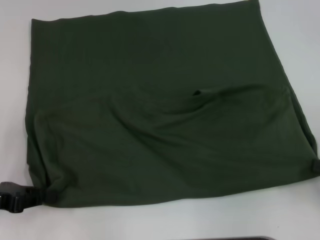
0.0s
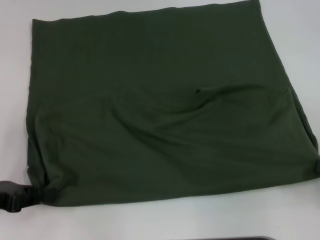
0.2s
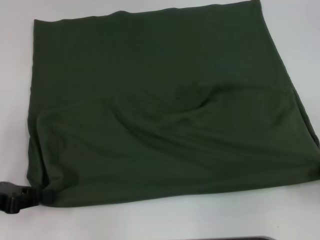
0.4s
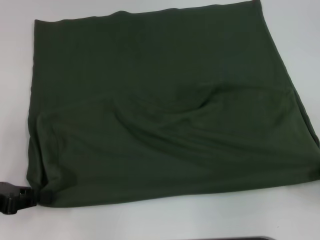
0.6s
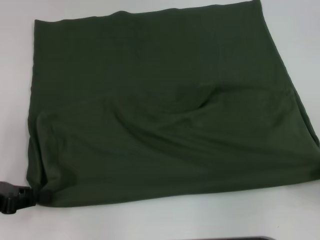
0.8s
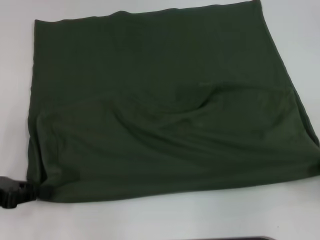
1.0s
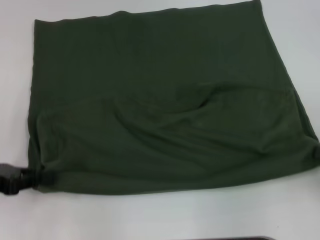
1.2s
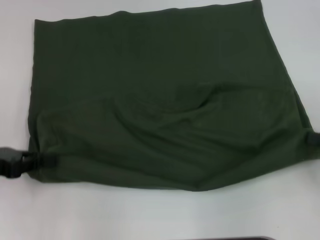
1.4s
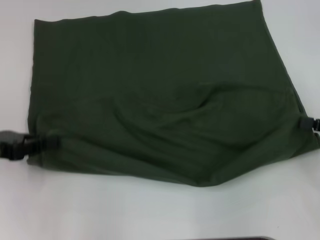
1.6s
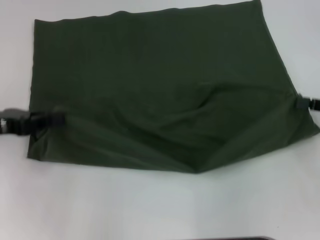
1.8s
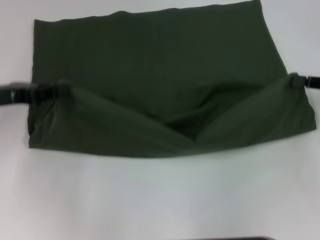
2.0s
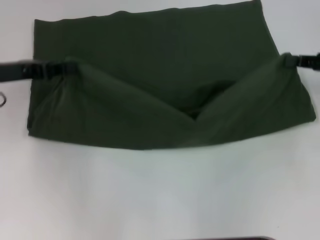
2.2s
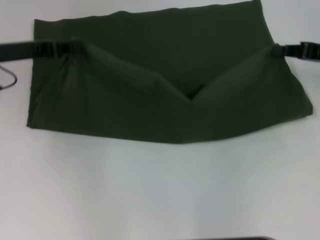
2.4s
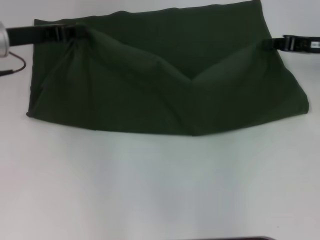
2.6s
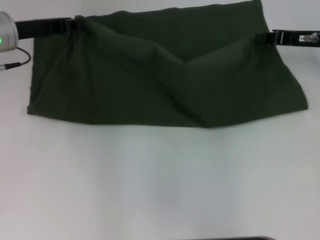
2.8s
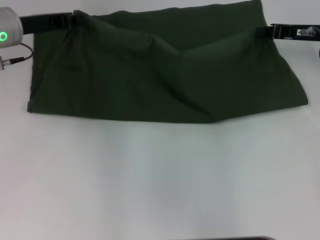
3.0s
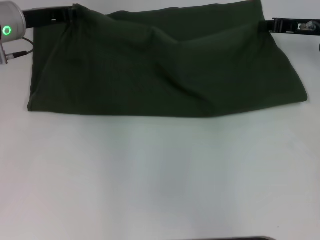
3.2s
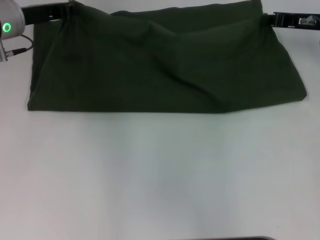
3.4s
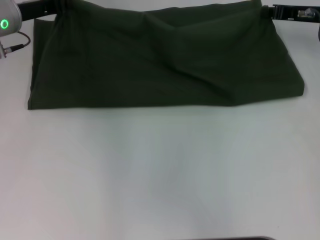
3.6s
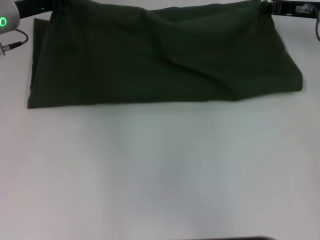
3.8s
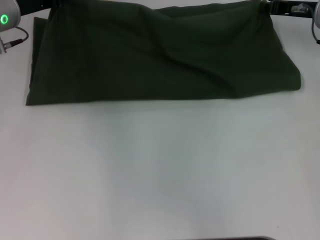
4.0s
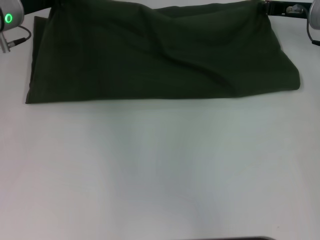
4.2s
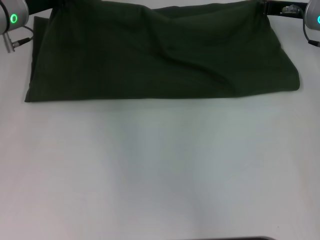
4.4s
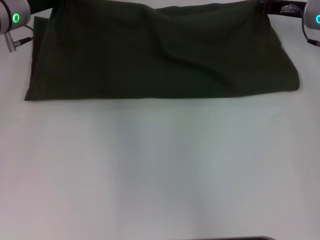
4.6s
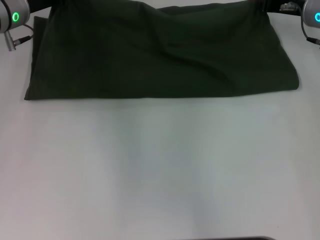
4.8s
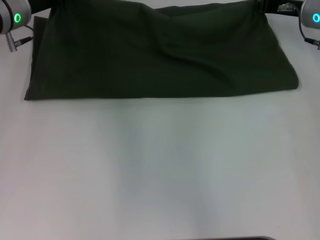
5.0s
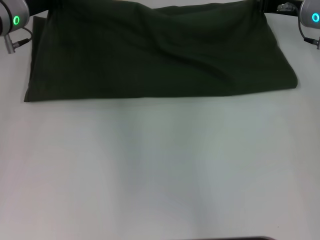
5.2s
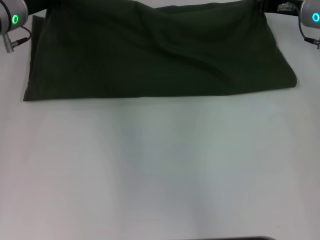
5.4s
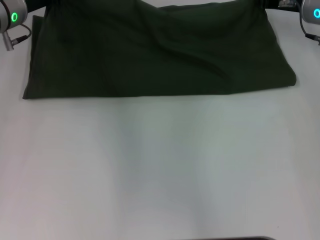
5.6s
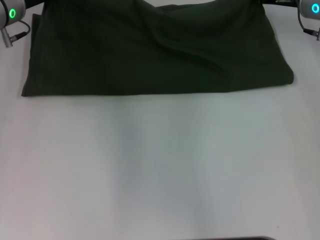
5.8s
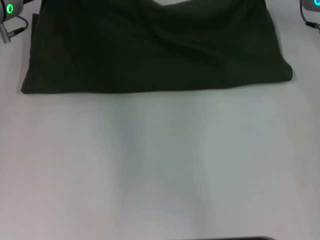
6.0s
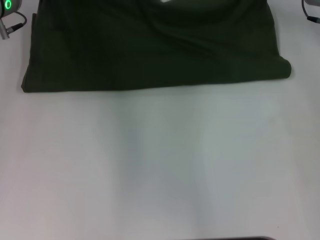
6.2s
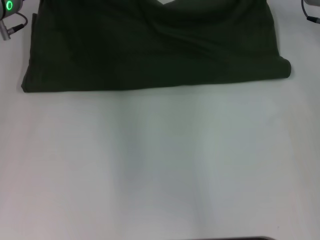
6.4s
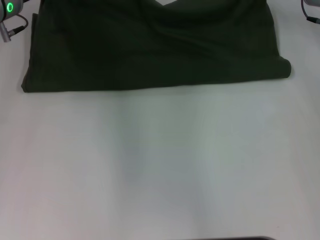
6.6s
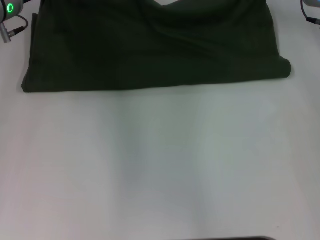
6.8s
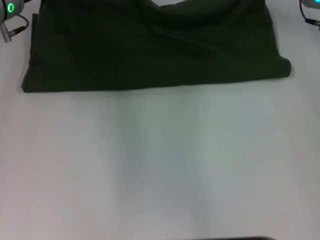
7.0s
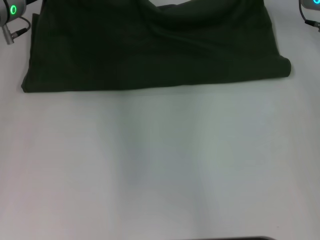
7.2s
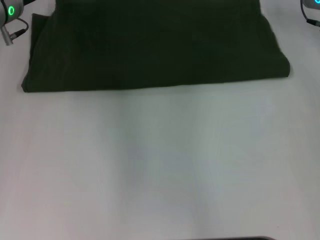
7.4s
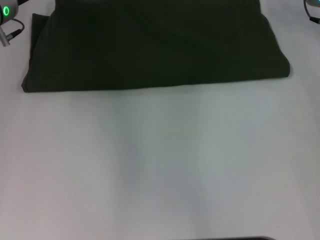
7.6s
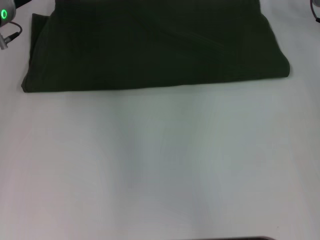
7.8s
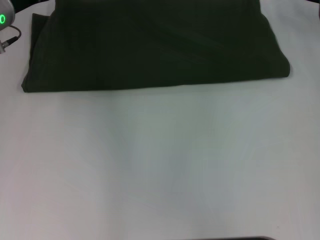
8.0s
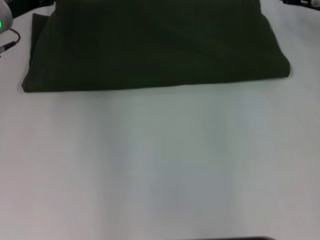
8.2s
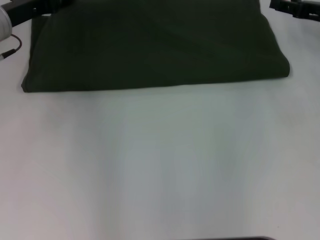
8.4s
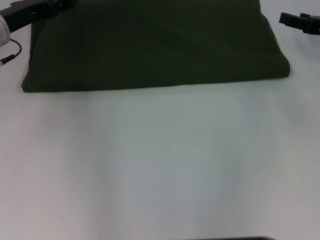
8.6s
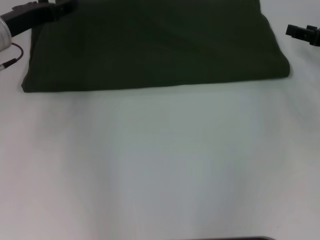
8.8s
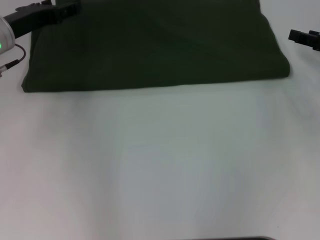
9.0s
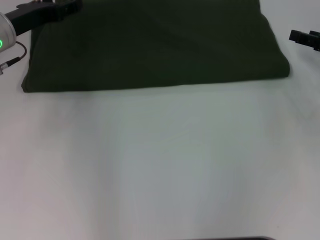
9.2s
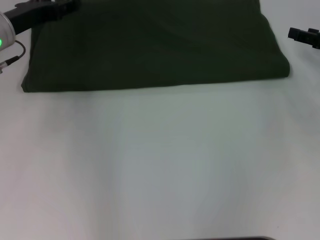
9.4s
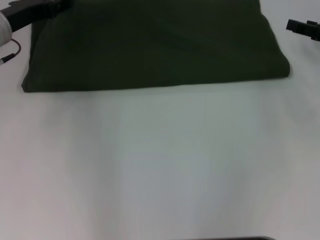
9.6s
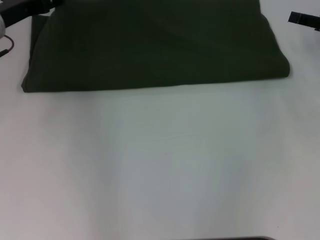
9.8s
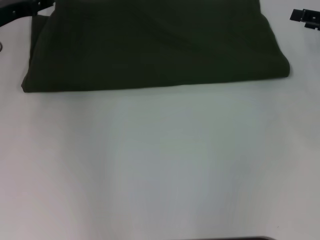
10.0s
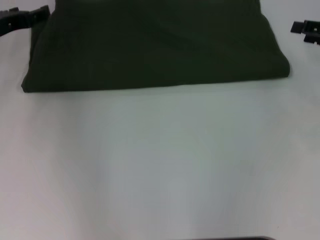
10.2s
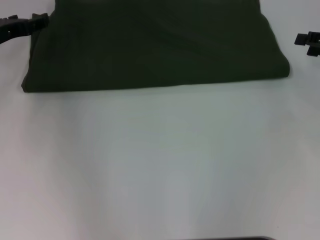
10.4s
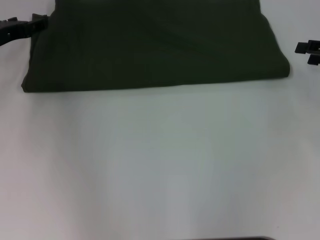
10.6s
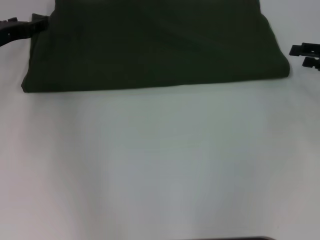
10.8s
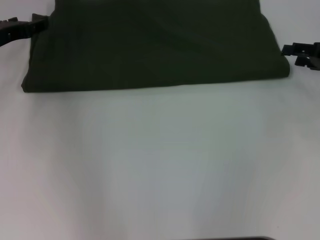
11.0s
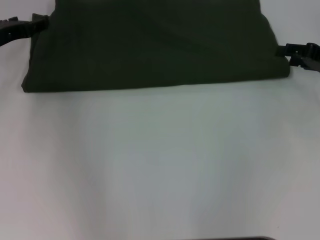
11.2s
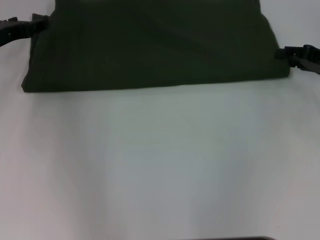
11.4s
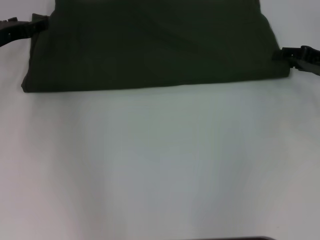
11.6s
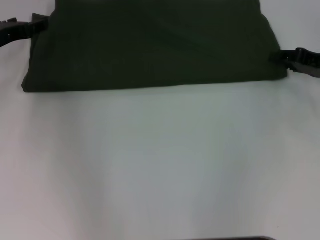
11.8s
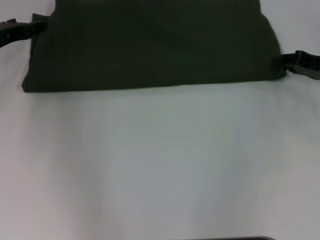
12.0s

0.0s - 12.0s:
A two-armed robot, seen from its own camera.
Step, 0.8s - 7.6s: Fold the clothes with your right hand.
0.0s - 1.6s: The left gripper shifts by roughly 5 cm; the right gripper goes about 5 cm forward.
1.6s - 3.0s: The left gripper goes approximately 20 cm forward and to the right; the right gripper heads forward and to the left, covering roughly 20 cm.
3.0s - 4.4s: The grippers move only a little.
4.4s - 7.6s: The grippers make only small movements.
7.6s - 9.0s: The right gripper moves backward and to the right, some 15 cm, and opens. The left gripper changes place by approximately 5 cm, and opens.
10.4s - 12.0s: The right gripper ends up approximately 5 cm from where it was.

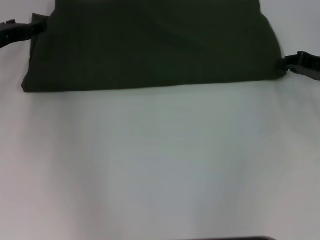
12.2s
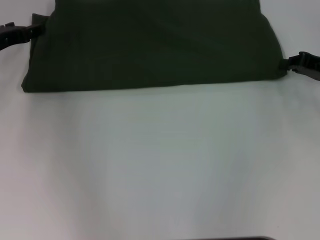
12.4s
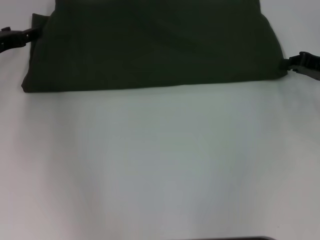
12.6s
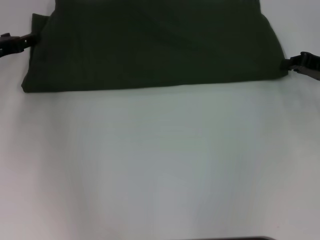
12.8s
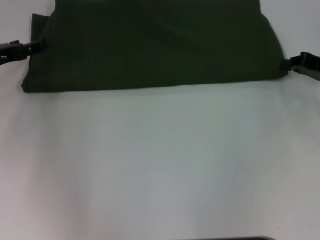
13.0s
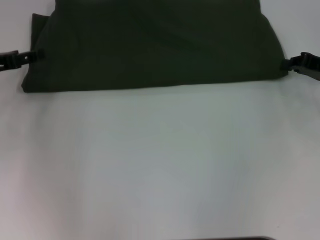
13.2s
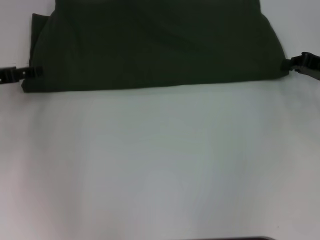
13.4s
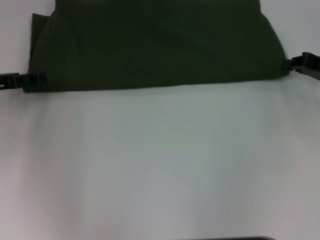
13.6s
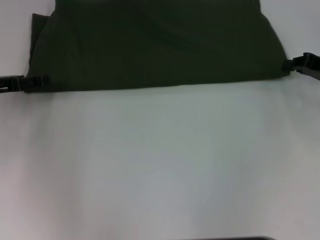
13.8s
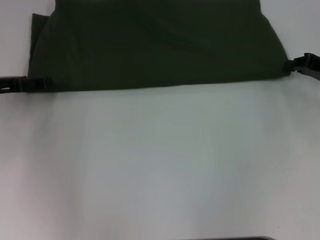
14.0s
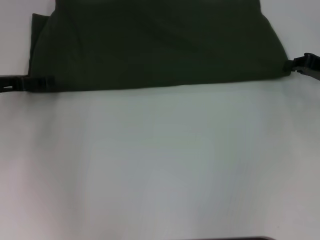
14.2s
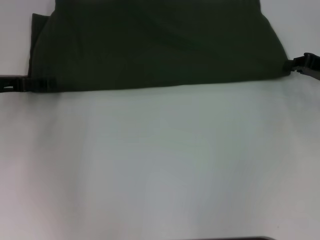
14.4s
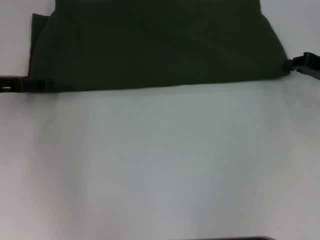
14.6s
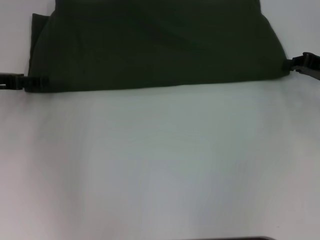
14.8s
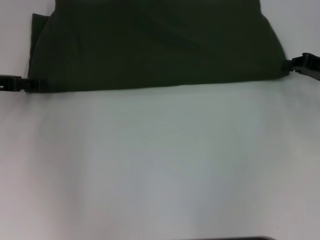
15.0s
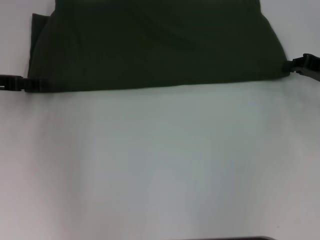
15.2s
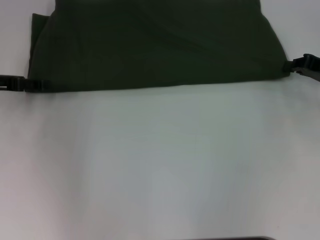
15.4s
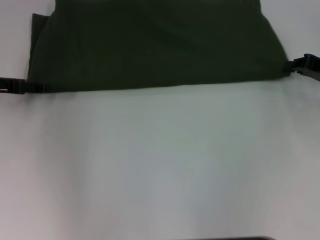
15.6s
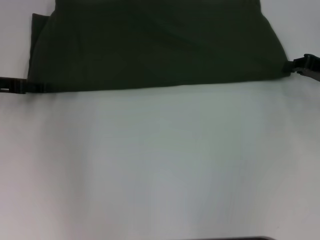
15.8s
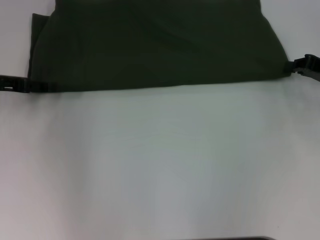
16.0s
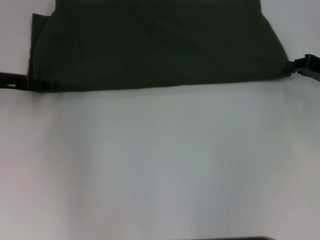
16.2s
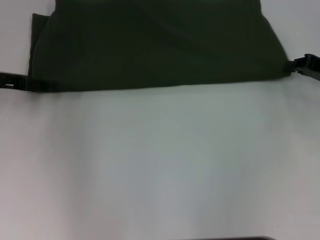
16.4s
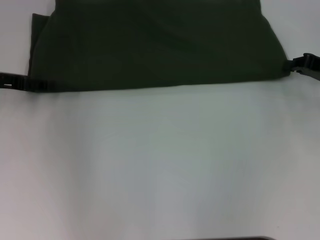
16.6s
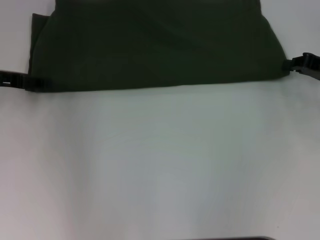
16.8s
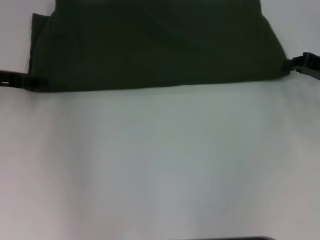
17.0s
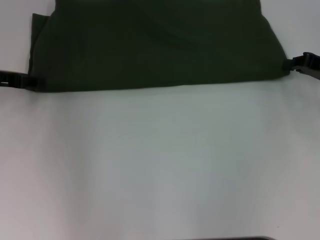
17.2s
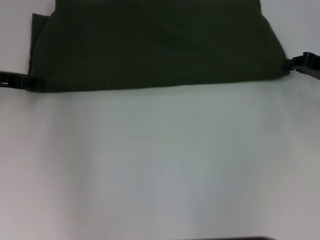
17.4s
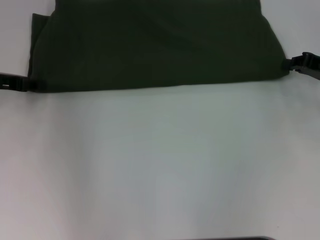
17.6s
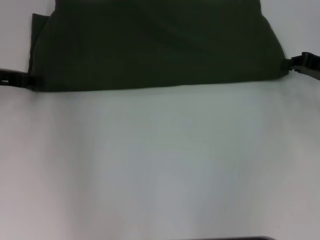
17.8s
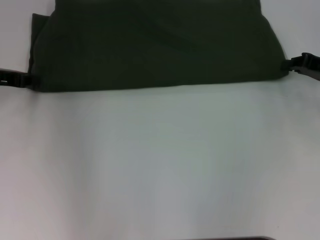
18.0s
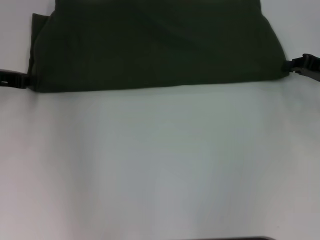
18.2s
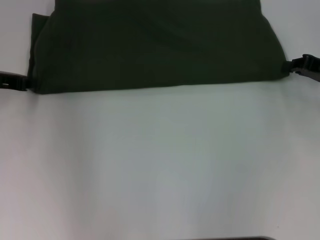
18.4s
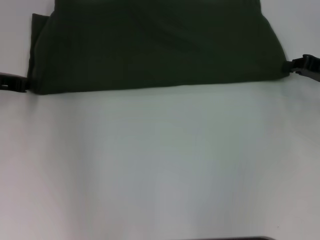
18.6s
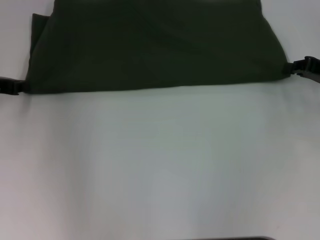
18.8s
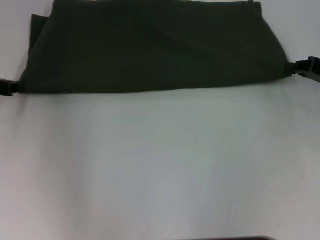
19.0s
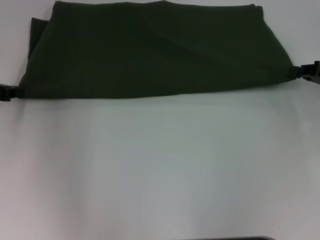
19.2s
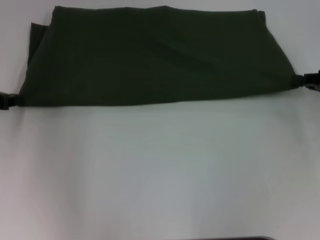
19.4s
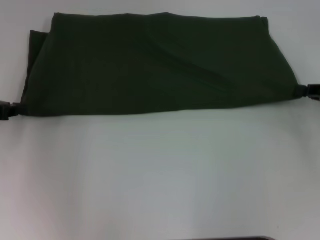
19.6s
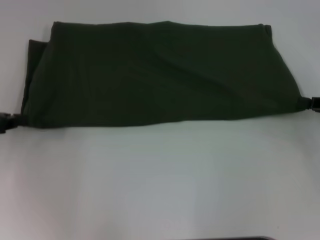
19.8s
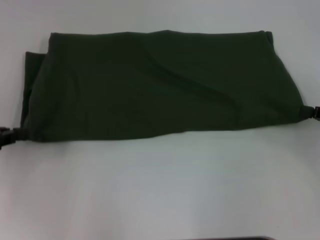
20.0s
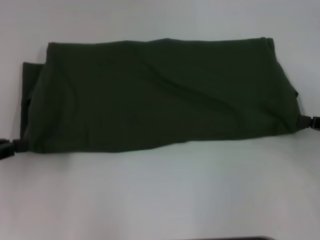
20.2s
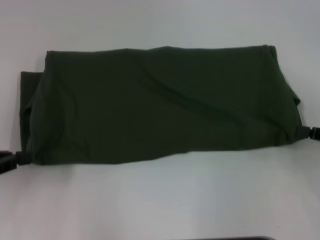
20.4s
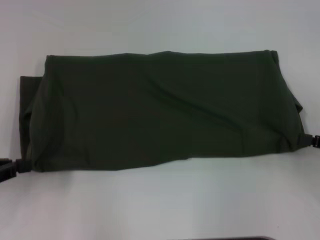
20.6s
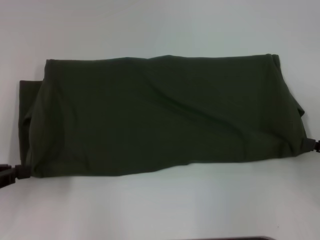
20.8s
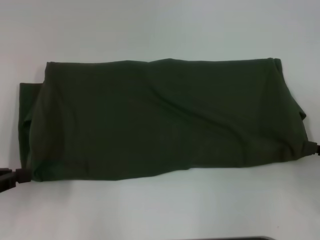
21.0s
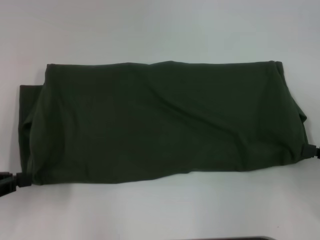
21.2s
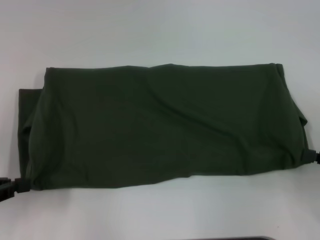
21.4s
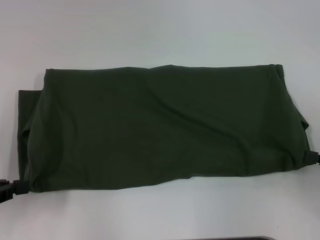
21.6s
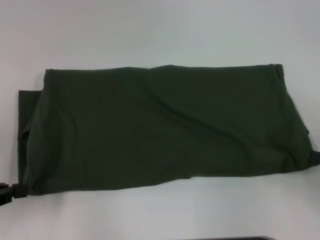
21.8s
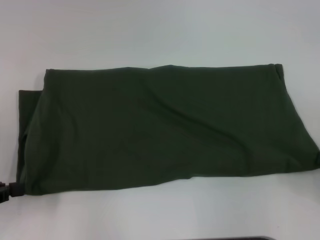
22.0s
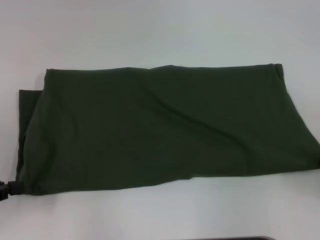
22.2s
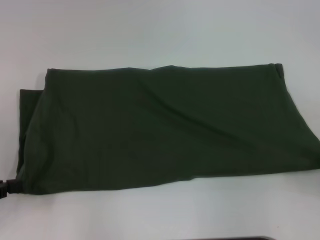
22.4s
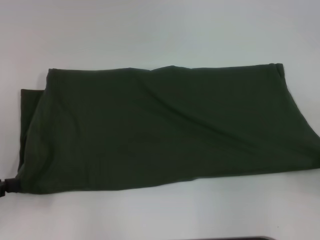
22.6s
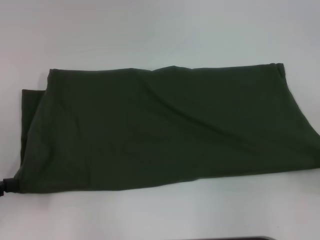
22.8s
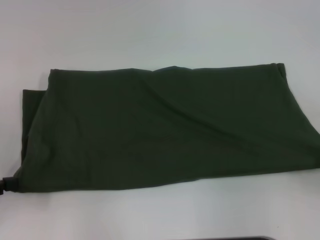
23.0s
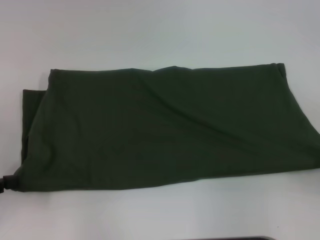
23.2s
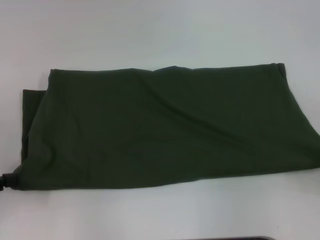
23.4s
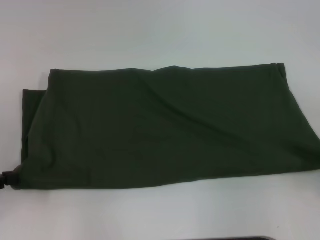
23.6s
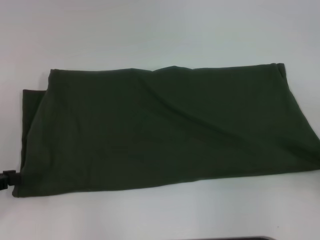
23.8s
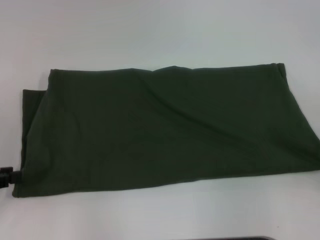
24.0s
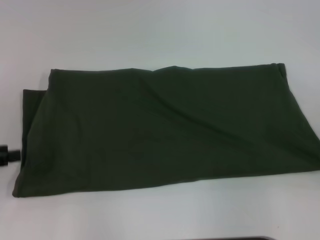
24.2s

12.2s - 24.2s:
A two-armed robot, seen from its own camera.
12.2s - 13.8s: The left gripper changes place by about 5 cm.
18.2s - 19.8s: The two grippers go roughly 5 cm backward.
19.8s - 21.2s: The grippers both shift backward by approximately 10 cm.
21.2s - 22.6s: The grippers stay close to where they were, moving slightly.
22.6s - 24.2s: The right gripper opens up.
